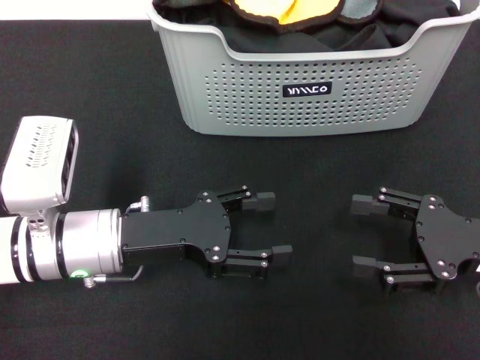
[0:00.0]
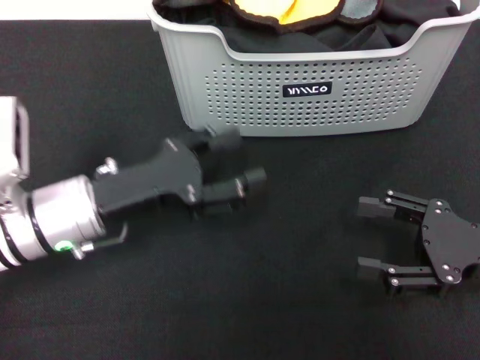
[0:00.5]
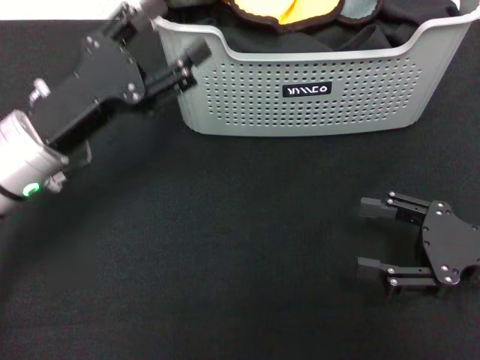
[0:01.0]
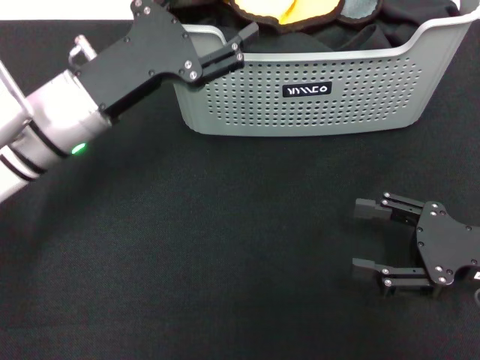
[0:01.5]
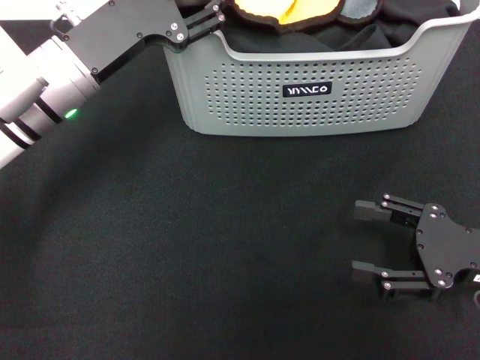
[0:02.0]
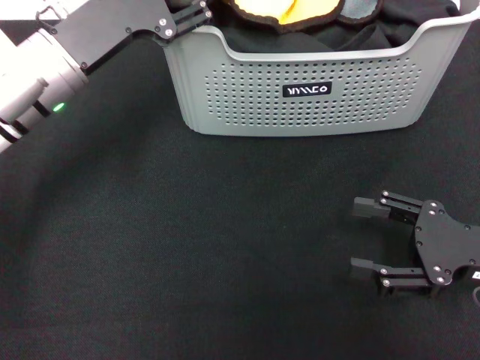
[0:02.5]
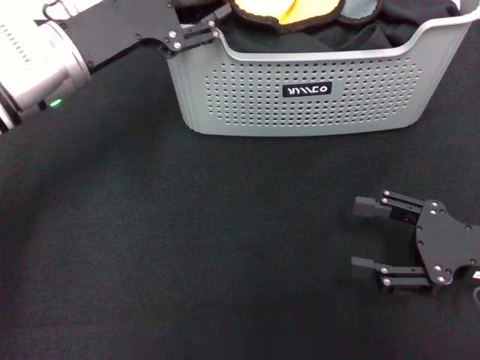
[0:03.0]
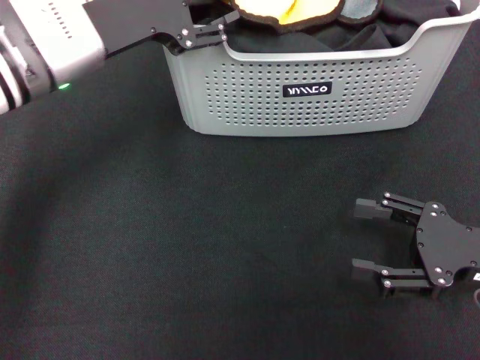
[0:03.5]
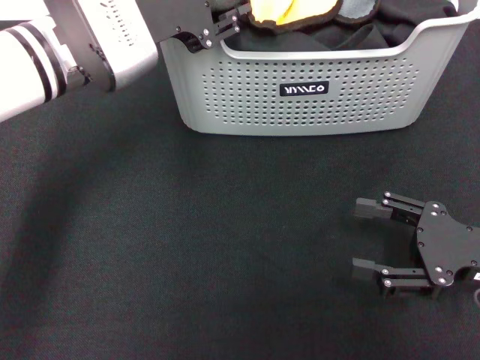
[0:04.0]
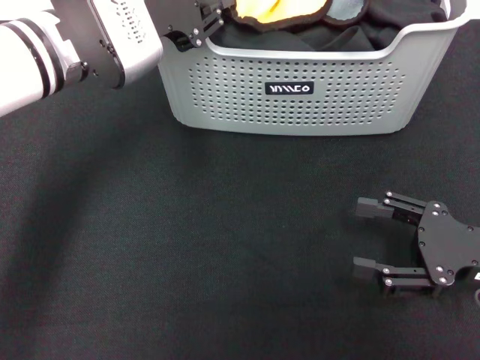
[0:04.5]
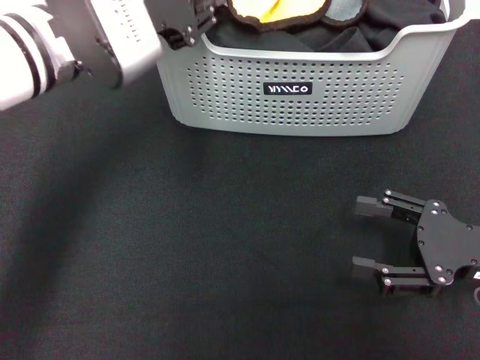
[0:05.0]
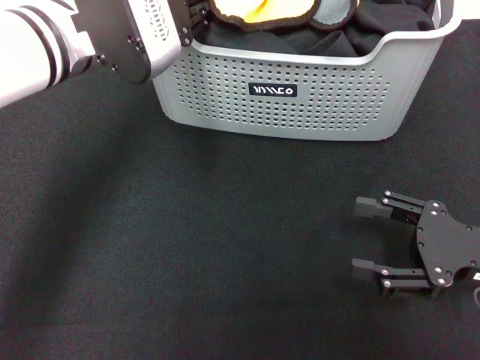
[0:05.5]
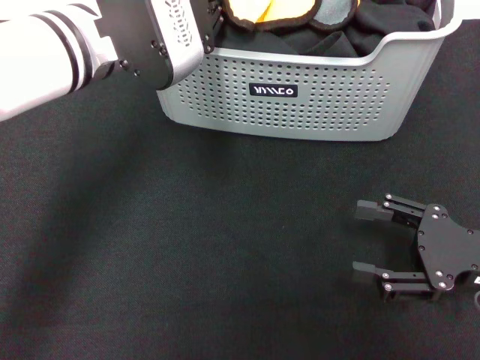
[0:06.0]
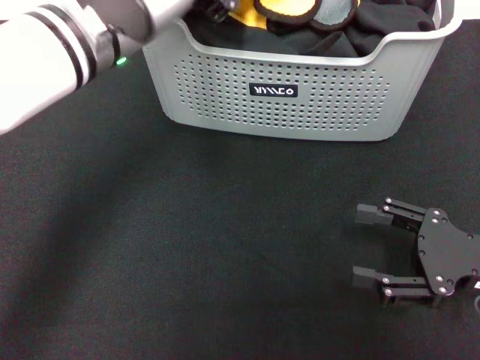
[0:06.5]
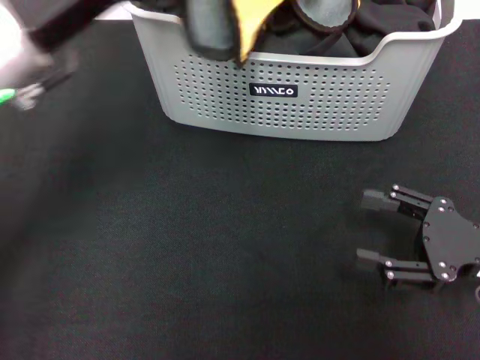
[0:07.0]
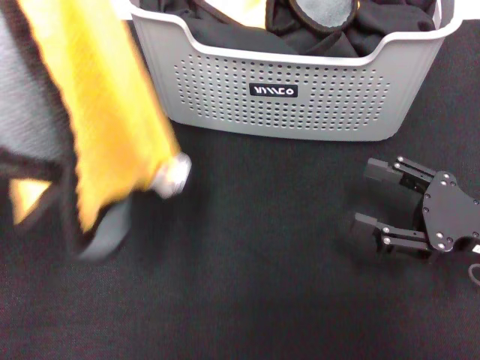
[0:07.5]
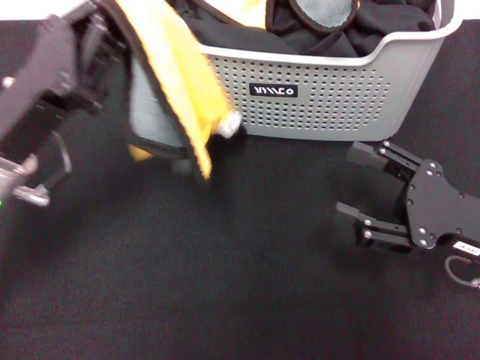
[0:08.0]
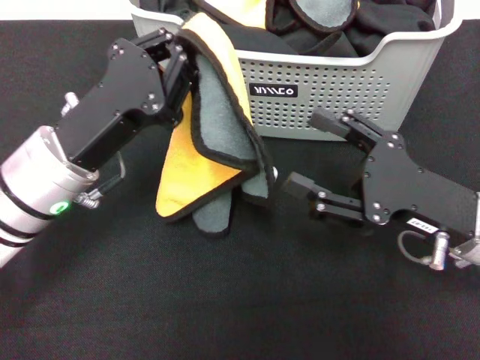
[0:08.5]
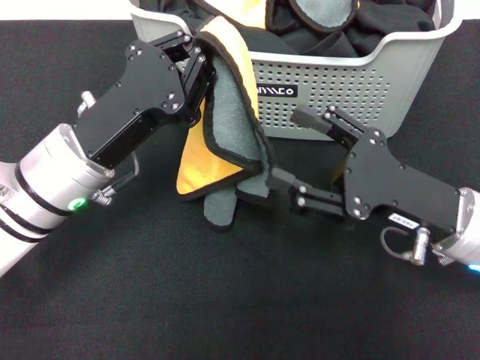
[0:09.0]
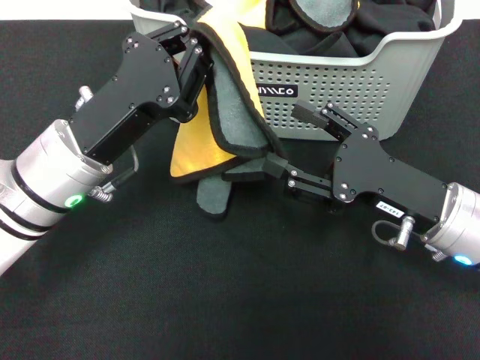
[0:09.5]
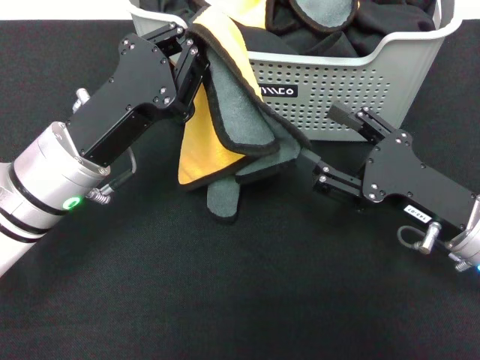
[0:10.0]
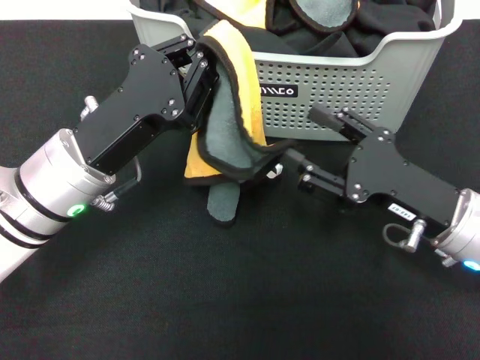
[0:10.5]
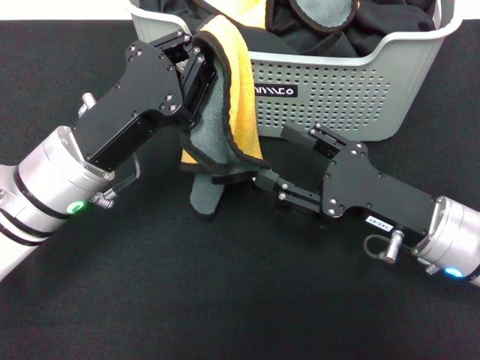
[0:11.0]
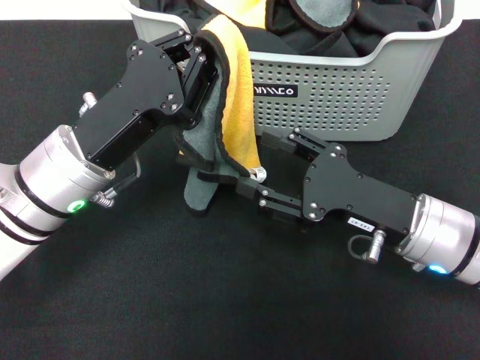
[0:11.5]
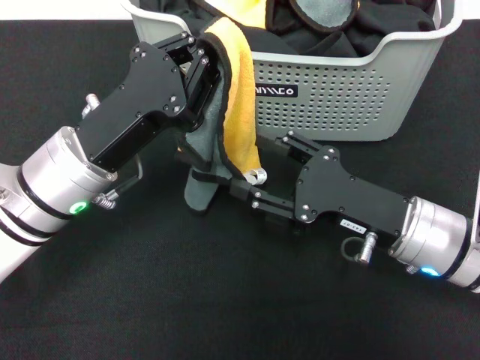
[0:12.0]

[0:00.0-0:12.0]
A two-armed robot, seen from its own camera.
Task of the whole recording: pick up the towel from the storage box and lay it flat on the black tablecloth.
Step, 0:00.0 to 0:04.5: Pick up a towel with the left gripper.
0:00.0 to 0:02.0: The left gripper shifts roughly 10 cm forward and upward.
0:02.0 to 0:04.0: The left gripper travels upward by about 5 cm.
0:04.0 to 0:06.0: The left gripper closes.
0:06.0 to 0:08.0: The left gripper moves to the left, backward and downward, about 15 cm.
0:08.0 to 0:10.0: The left gripper ends up approximately 5 cm from where it was.

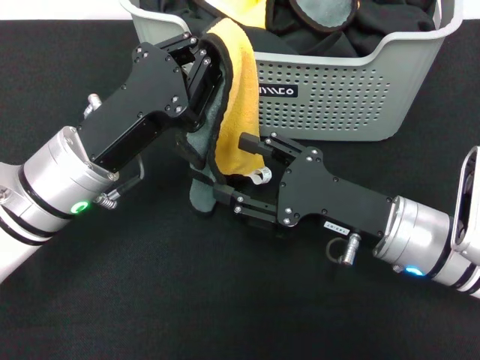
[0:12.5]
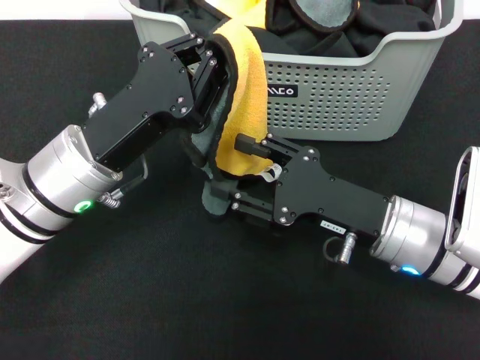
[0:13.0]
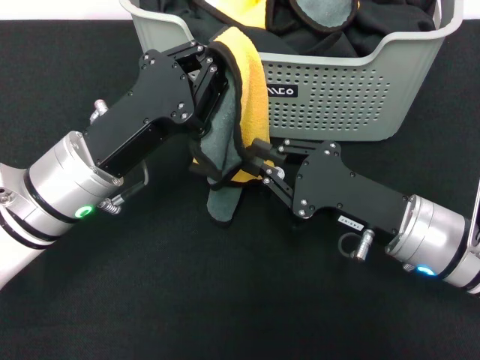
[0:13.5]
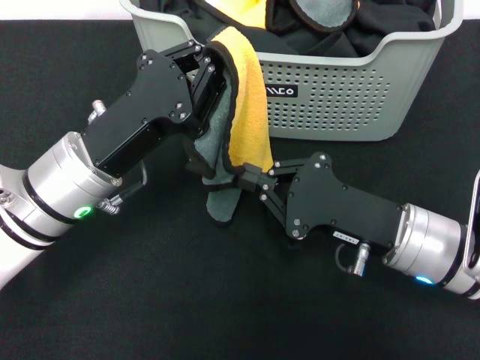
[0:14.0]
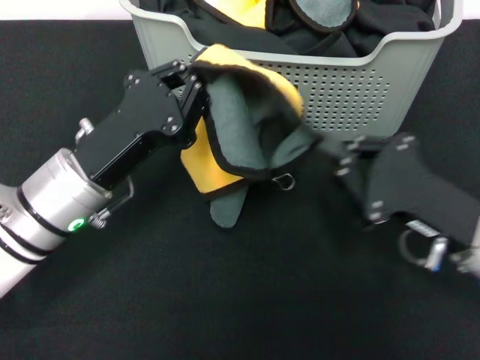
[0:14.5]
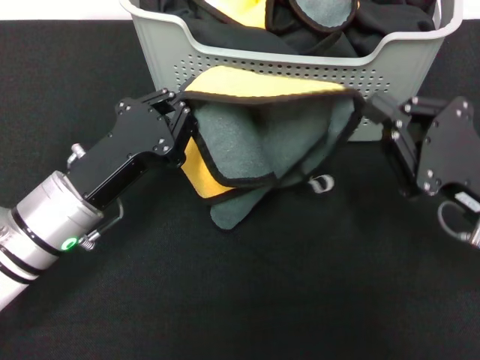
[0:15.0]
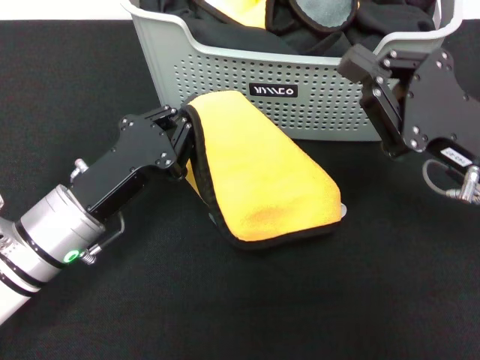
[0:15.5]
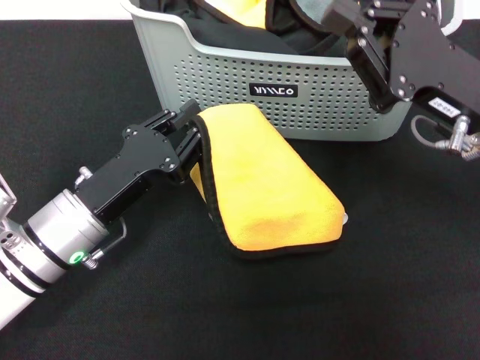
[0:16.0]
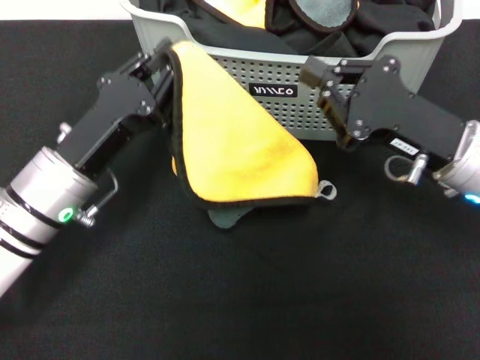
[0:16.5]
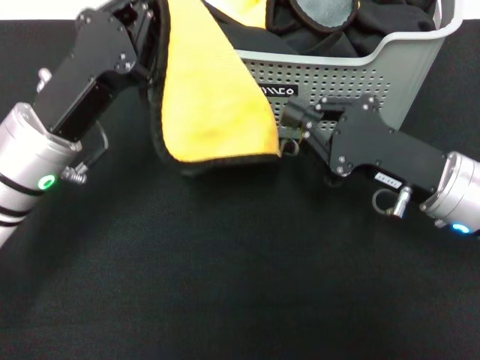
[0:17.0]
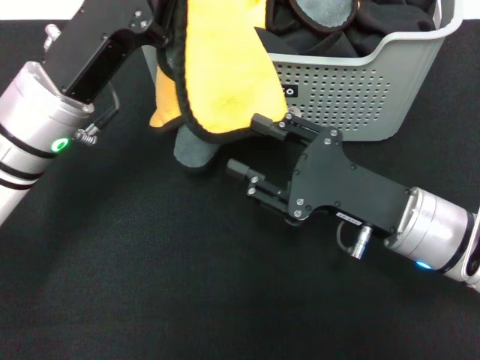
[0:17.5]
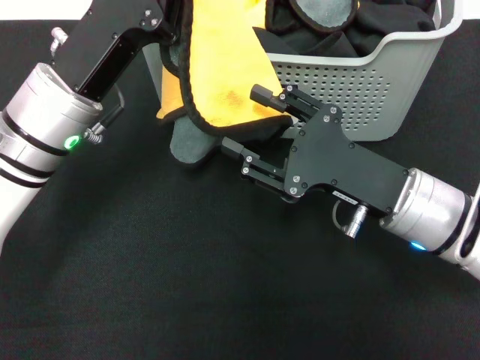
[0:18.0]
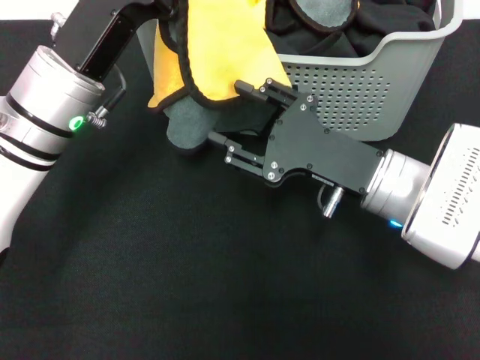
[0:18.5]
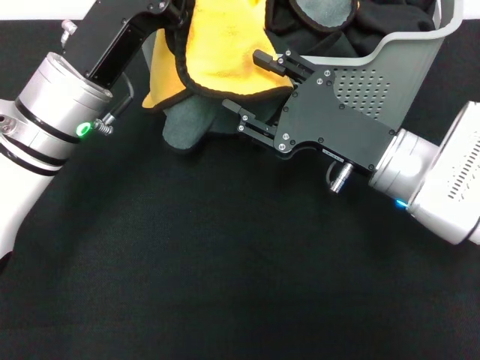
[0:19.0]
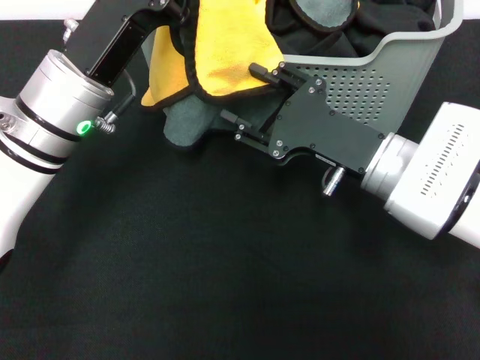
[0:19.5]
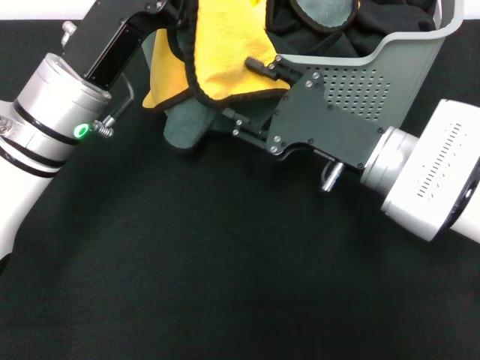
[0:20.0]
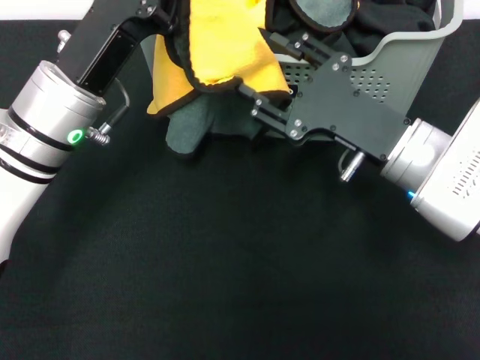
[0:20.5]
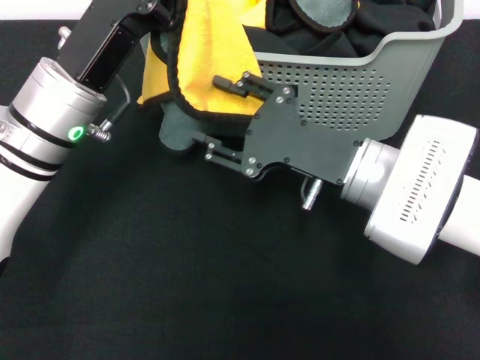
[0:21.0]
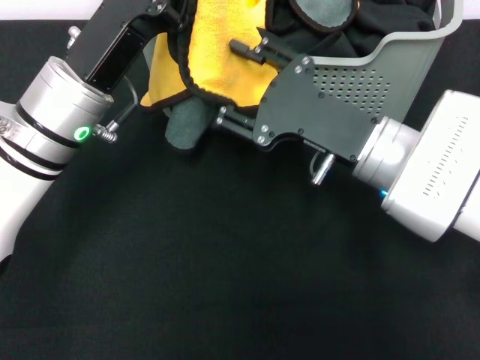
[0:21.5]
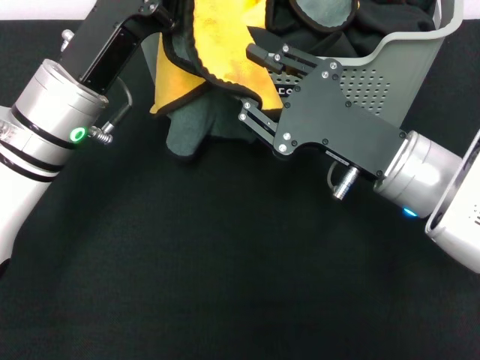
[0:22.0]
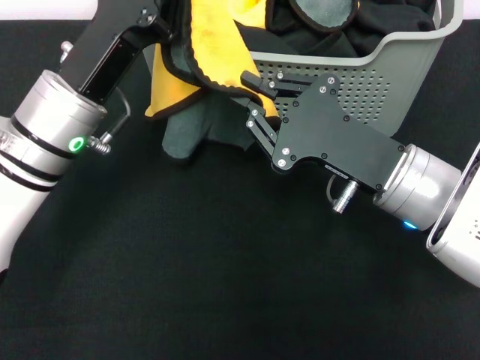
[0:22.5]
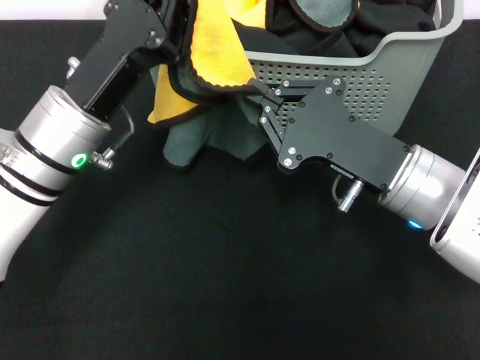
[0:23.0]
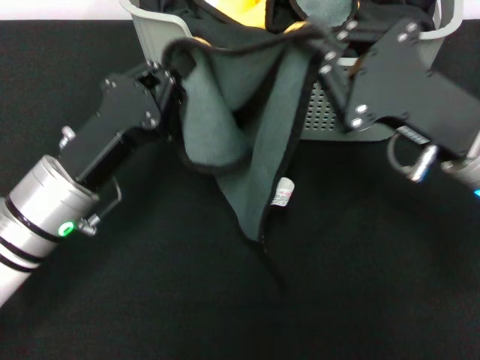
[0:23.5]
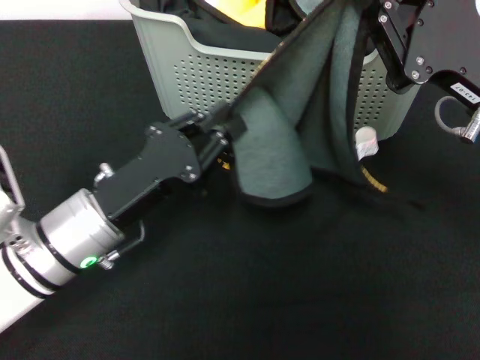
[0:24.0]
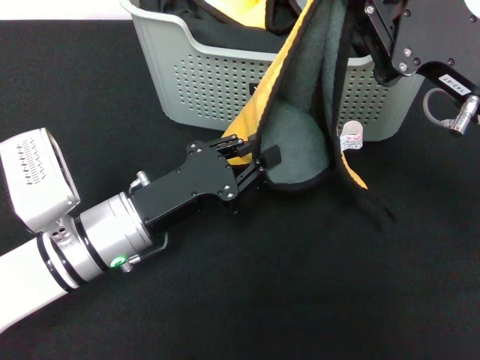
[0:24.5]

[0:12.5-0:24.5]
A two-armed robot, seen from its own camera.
Task of the whole recording: pick up the towel from the storage box and lay it flat on the black tablecloth.
Step, 0:12.5 to 0:22.5: Spread the towel flat with the left gripper.
0:12.5 to 0:14.5: The right gripper heads to the right, covering roughly 5 cm, and closes.
0:14.5 to 0:16.5: The right gripper is displaced forward by about 5 cm.
0:16.5 to 0:18.5: The right gripper moves to the left, about 5 cm, and opens its fingers, while the left gripper is displaced upward and forward by approximately 10 cm.
0:20.5 to 0:22.5: The right gripper closes its fingers.
0:22.5 to 0:24.5: The left gripper moves downward and backward, roughly 10 cm, while the right gripper goes some 10 cm to the right and upward.

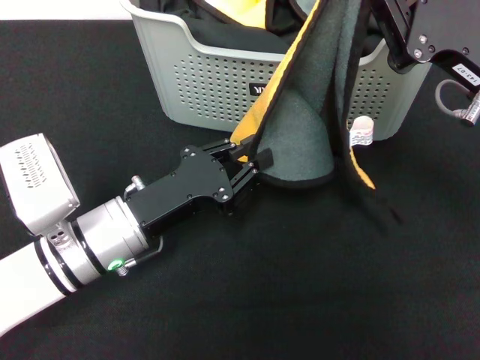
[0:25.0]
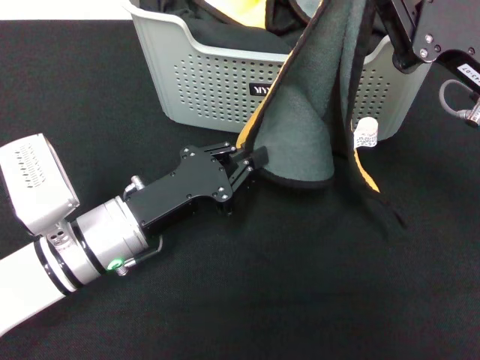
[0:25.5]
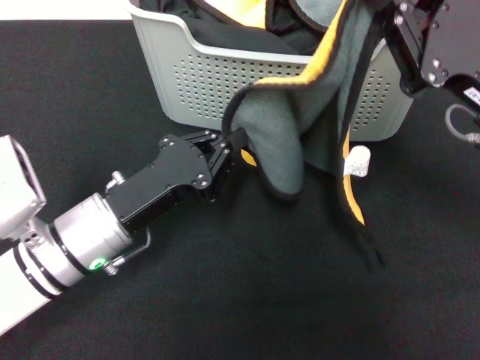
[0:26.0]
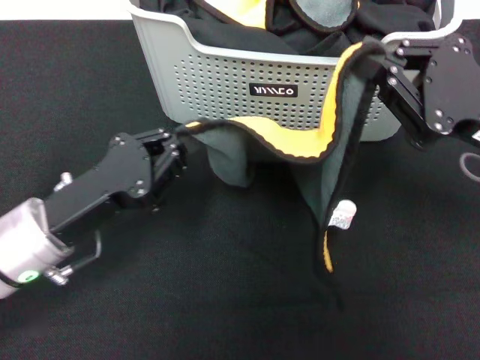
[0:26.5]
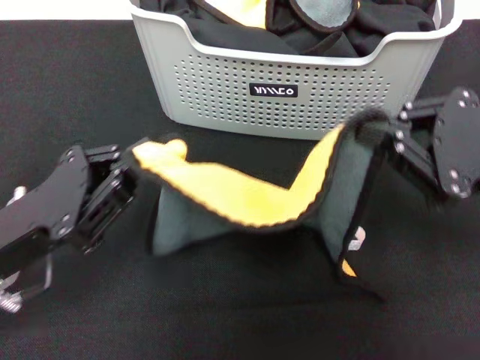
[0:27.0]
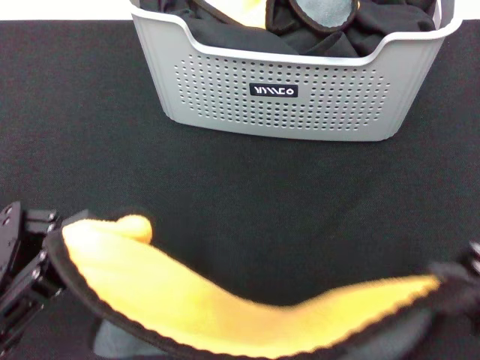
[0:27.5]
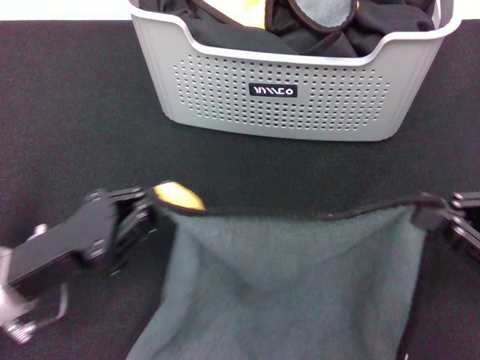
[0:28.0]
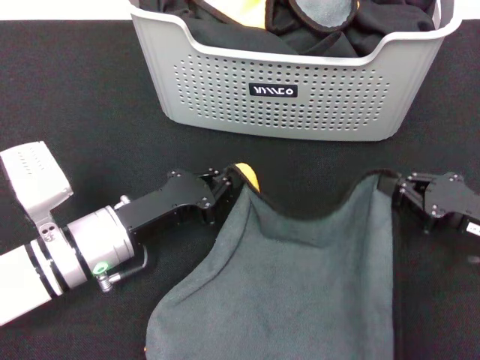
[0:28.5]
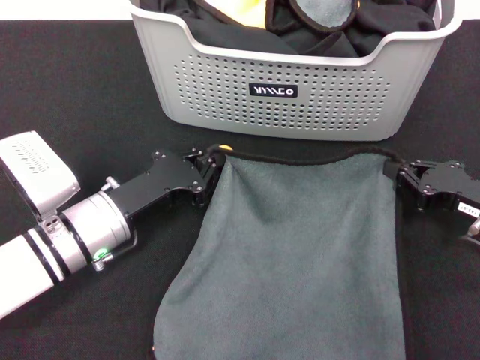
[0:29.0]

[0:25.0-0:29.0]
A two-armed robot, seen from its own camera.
Task of the whole recording: pick up the towel from the storage box and lay it flat on the black tablecloth.
0:25.0 to 0:27.0: The left gripper travels to the left, upward and backward by approximately 10 cm. The right gripper travels backward by roughly 5 cm.
0:27.0 to 0:29.0: The right gripper goes approximately 15 cm downward. Meanwhile the left gripper is displaced downward, forward and to the right by roughly 10 cm.
